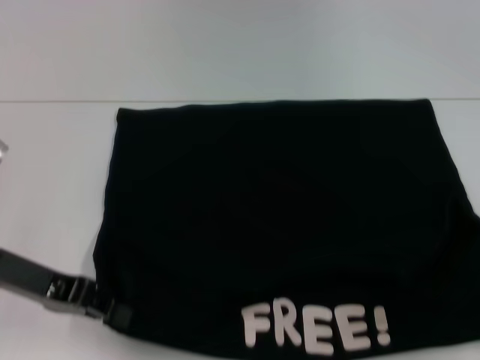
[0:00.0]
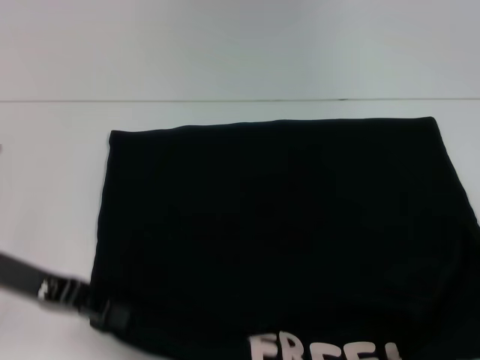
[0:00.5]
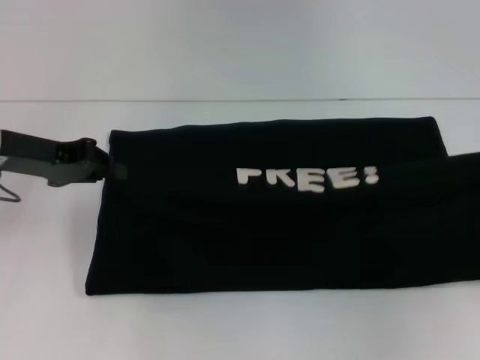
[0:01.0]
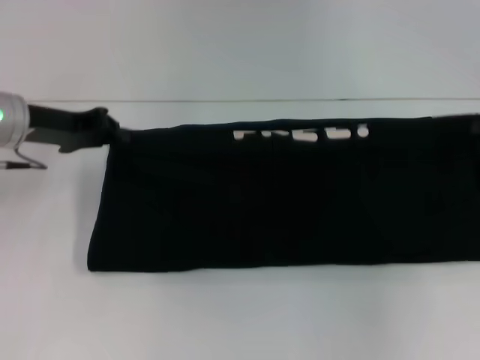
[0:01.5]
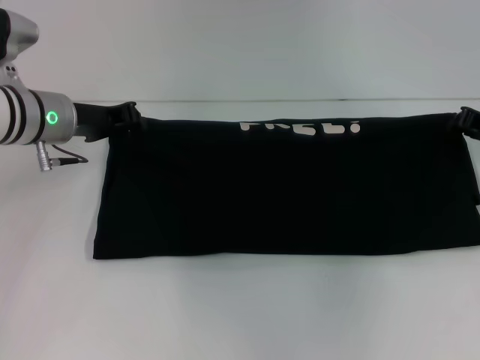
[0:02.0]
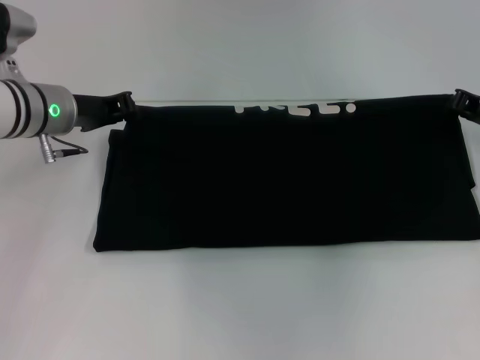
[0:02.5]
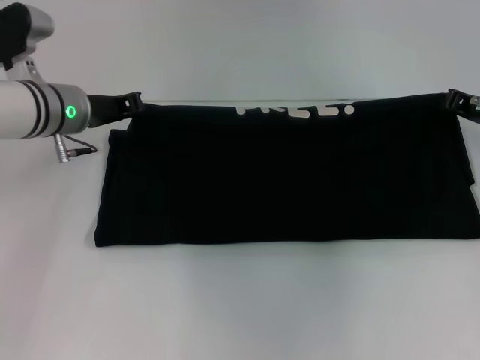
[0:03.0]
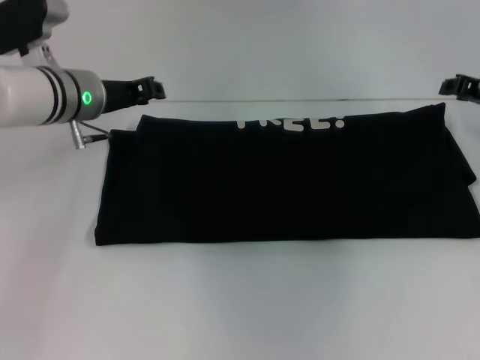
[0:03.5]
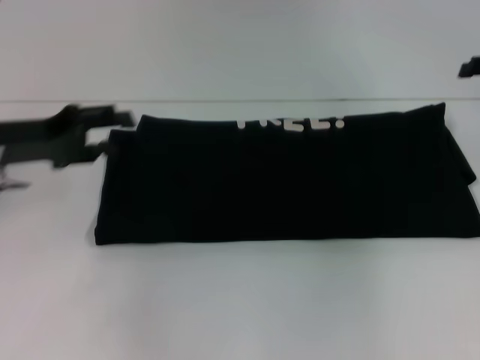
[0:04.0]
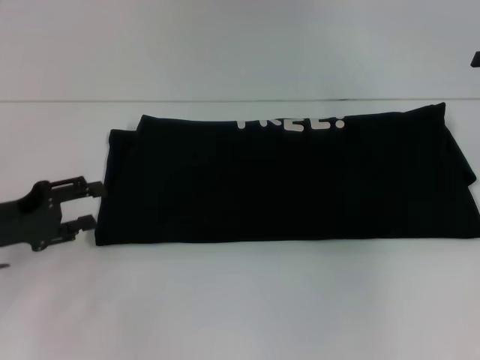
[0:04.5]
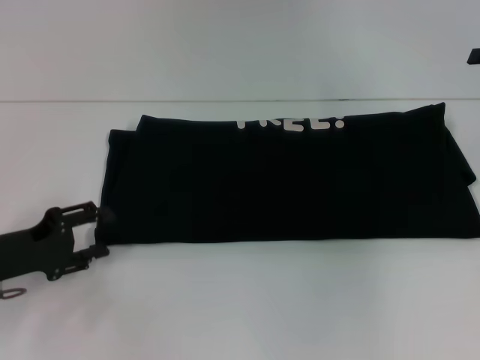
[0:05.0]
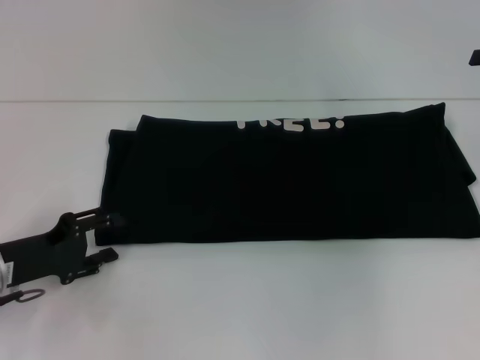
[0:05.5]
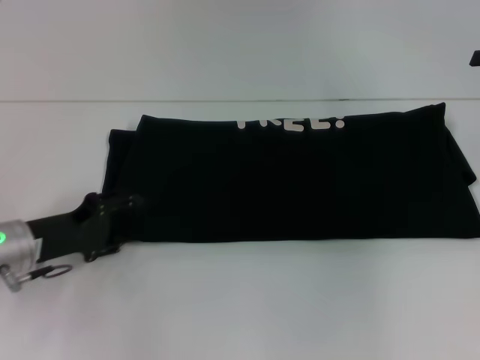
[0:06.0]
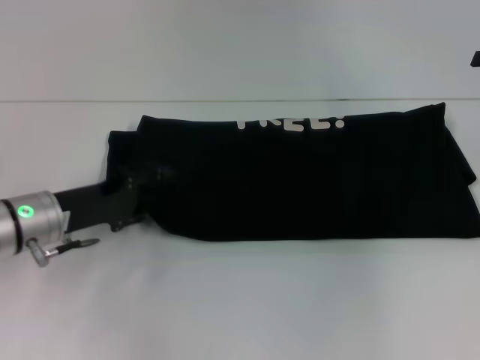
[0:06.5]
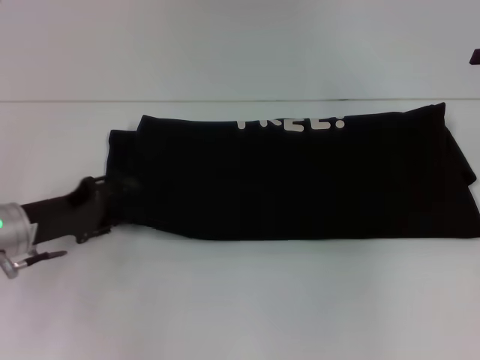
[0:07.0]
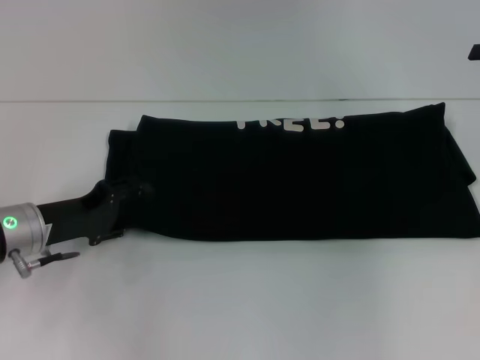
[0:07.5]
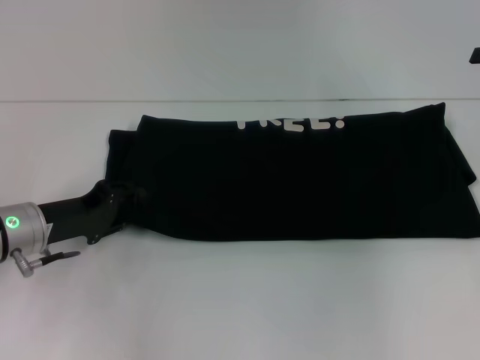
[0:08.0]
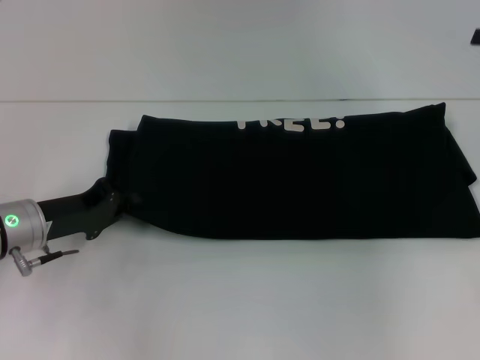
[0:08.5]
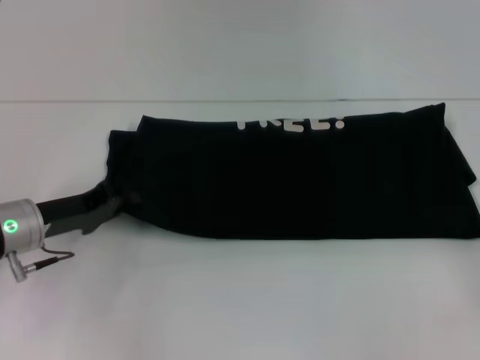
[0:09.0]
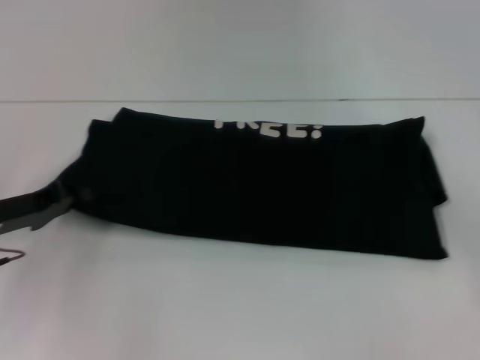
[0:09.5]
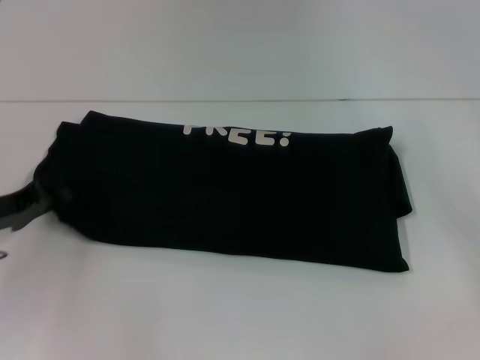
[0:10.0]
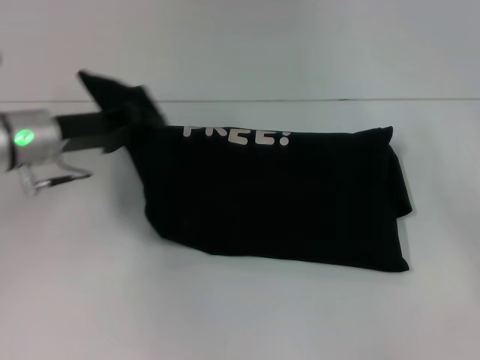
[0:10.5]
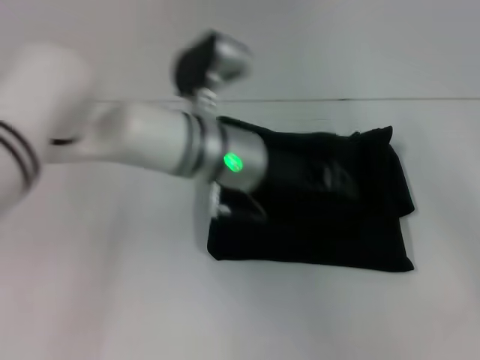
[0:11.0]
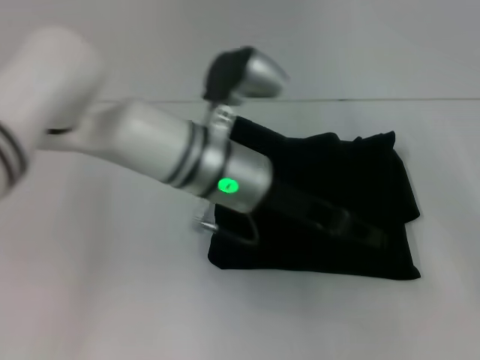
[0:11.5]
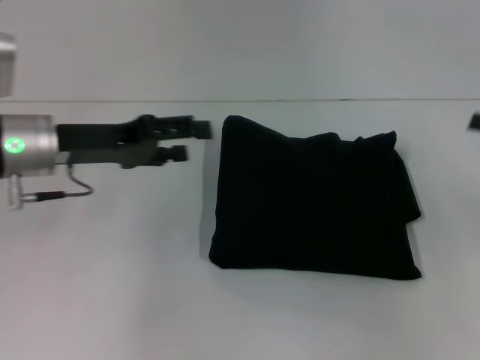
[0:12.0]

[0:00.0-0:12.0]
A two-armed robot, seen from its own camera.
Step, 0:00.0 to 0:04.0: Fold the clothes with your right hand.
Step, 0:00.0 to 0:11.5: Fold the clothes with your left hand.
0:00.0 to 0:02.0: Both grippers move forward, roughly 15 cm.
0:02.0 to 0:04.0: The left gripper is displaced to the left and backward by some 10 cm, and opens. Meanwhile the right gripper is displaced upward by some 10 cm, and opens up.
0:04.0 to 0:06.0: The left gripper travels downward by about 10 cm.
0:06.0 to 0:08.0: There are only small adjustments of the grippers.
0:08.0 to 0:10.0: The right gripper heads backward and downward, covering roughly 15 cm; the left gripper travels to the left by approximately 5 cm, and closes its fingers.
0:10.0 to 0:12.0: The right gripper shifts some 5 cm forward, while the left gripper travels to the right and upward by some 15 cm, and opens its fingers.

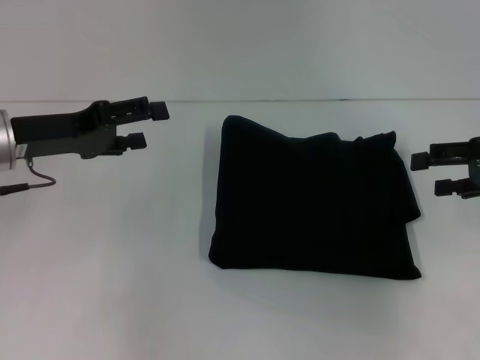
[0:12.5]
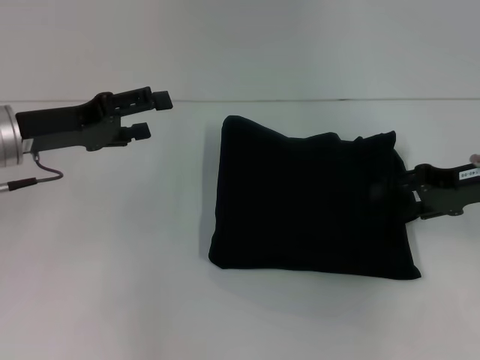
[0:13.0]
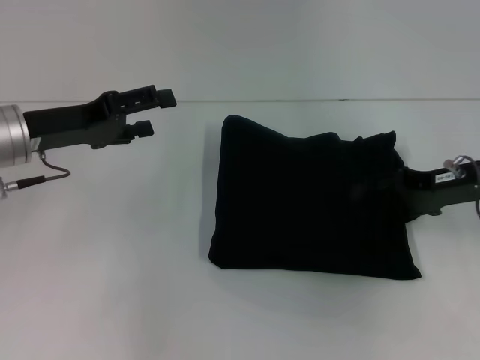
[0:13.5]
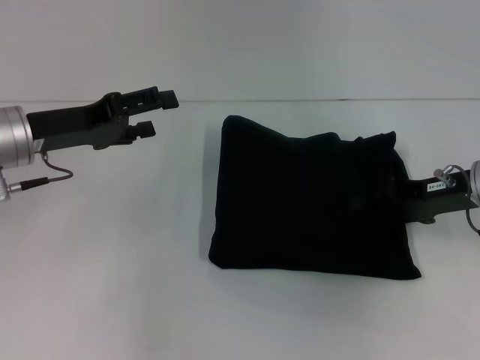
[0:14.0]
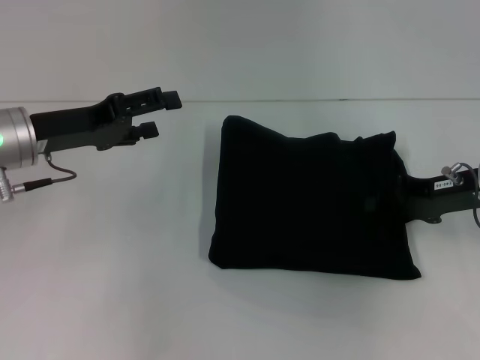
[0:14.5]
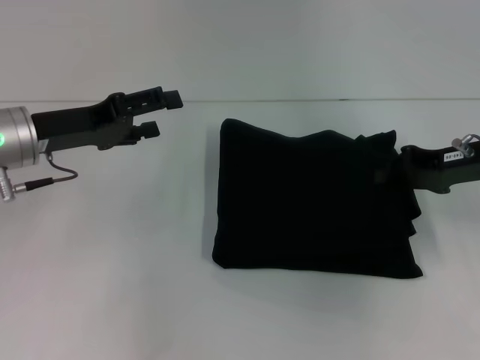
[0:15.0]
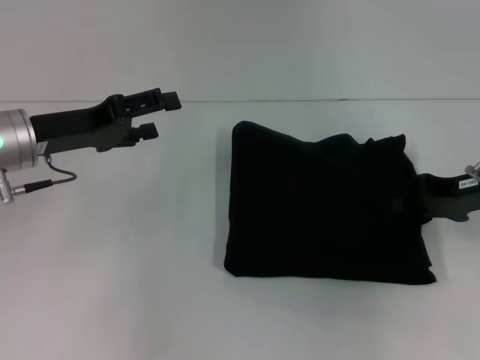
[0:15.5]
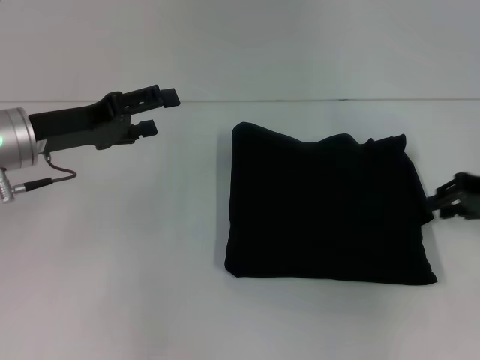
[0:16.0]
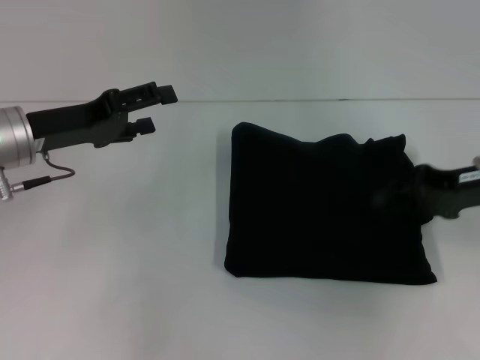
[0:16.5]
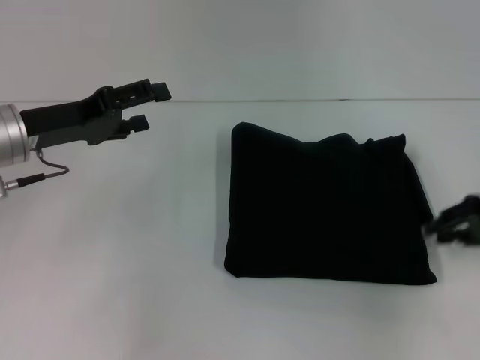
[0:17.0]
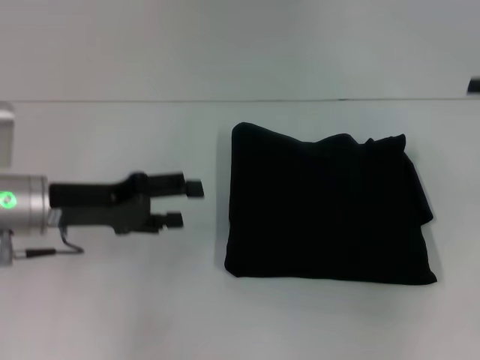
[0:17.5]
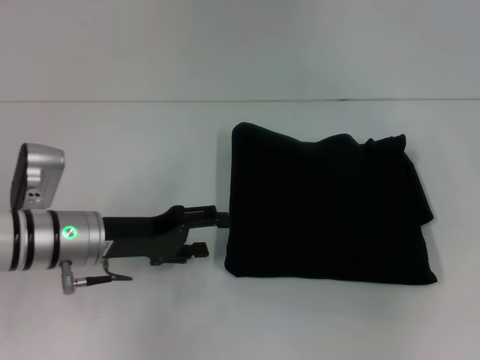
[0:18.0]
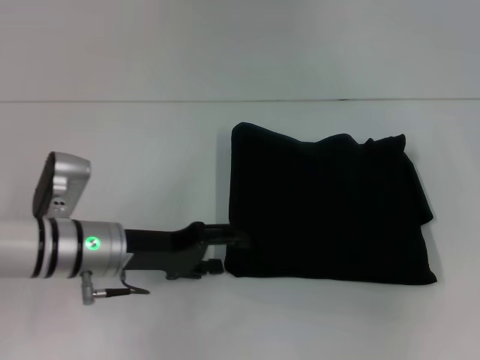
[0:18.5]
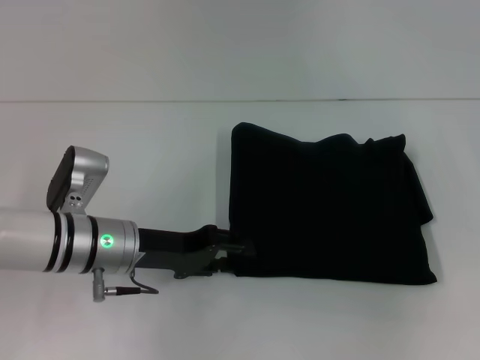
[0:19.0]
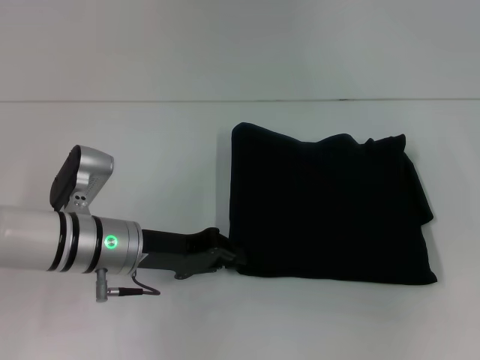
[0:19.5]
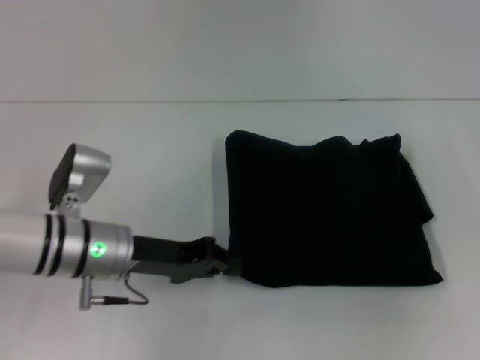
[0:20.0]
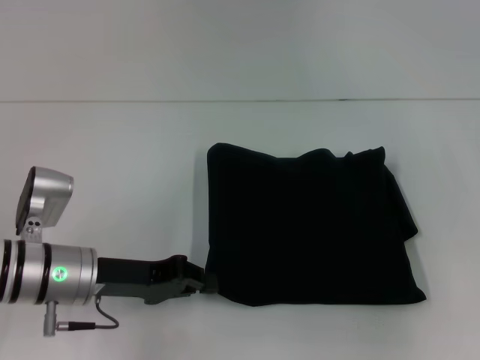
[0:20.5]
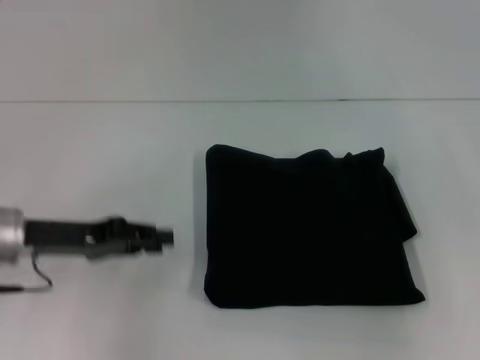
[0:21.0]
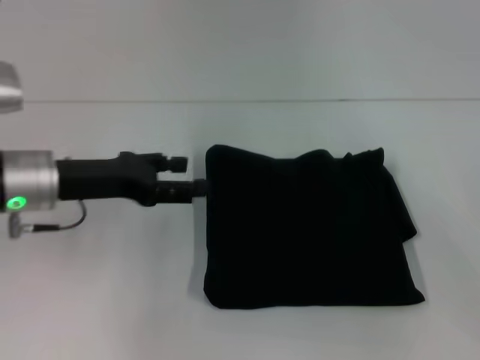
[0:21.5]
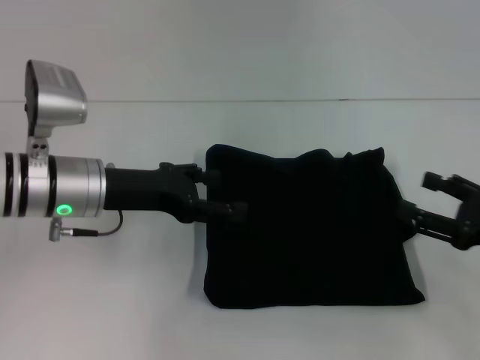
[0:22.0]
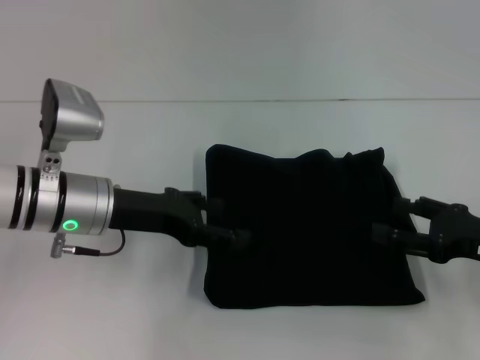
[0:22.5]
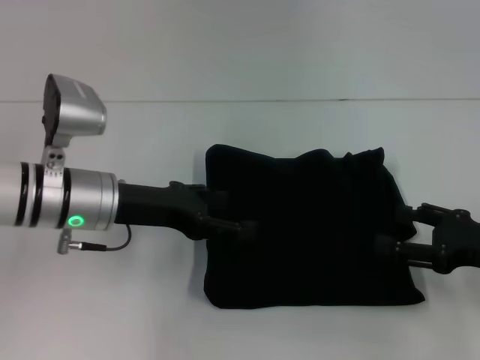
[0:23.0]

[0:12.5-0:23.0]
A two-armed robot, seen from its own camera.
0:12.5 to 0:14.5: The right gripper heads to the left and downward, covering roughly 10 cm, and closes up.
0:16.5 to 0:19.0: The right gripper shifts about 15 cm to the right and upward, and opens up, while the left gripper goes about 10 cm to the right and downward.
0:19.0 to 0:21.0: The left gripper moves to the left, some 10 cm, and closes.
0:21.0 to 0:23.0: The right gripper travels downward, to the left and backward by some 20 cm, while the left gripper shifts about 10 cm to the right, and opens its fingers.

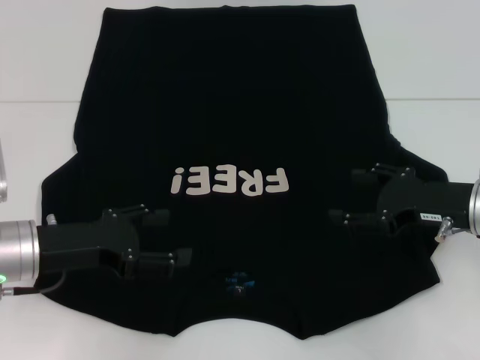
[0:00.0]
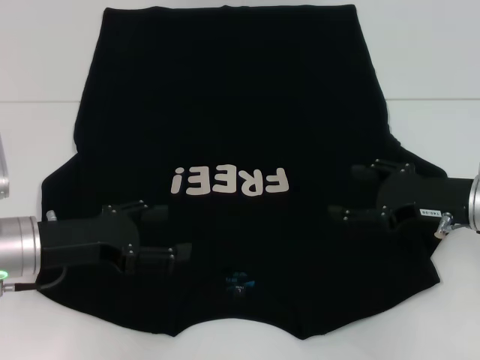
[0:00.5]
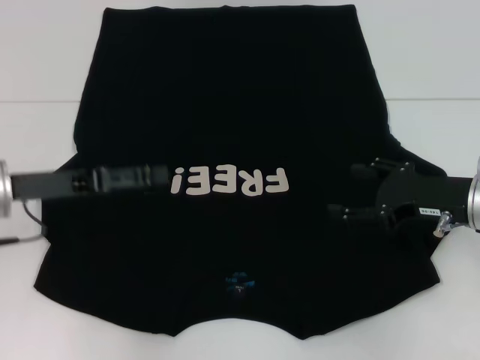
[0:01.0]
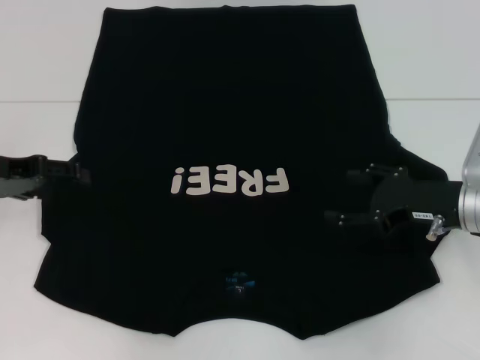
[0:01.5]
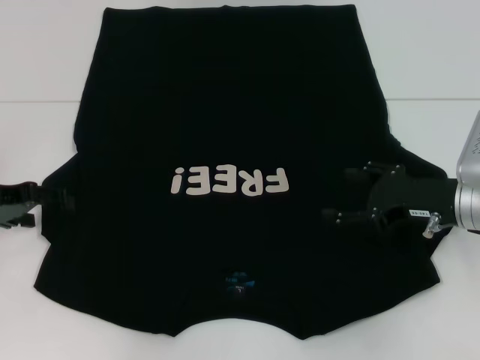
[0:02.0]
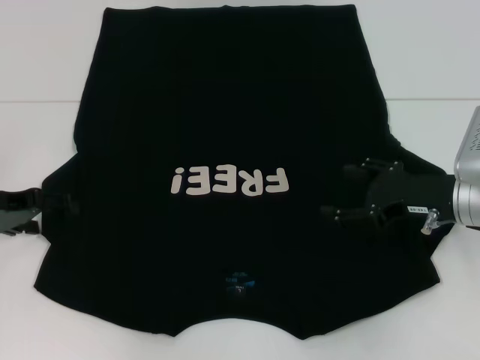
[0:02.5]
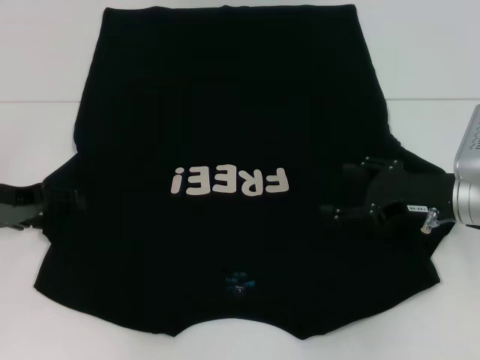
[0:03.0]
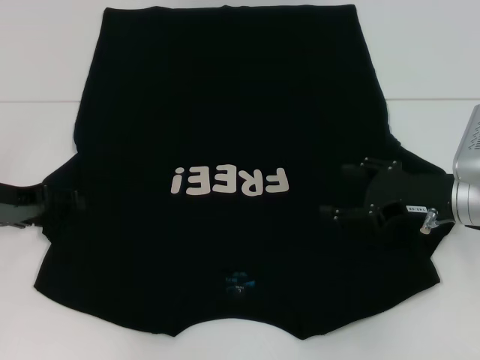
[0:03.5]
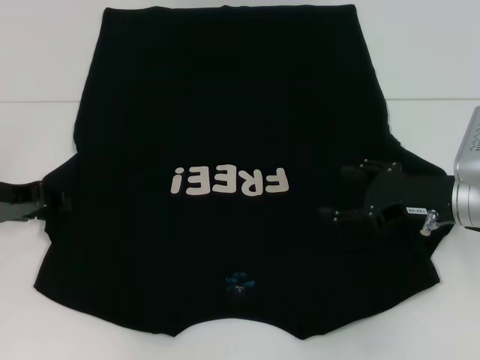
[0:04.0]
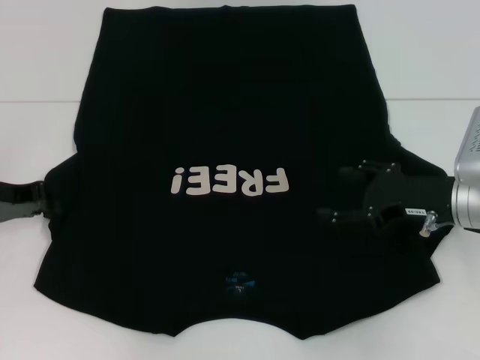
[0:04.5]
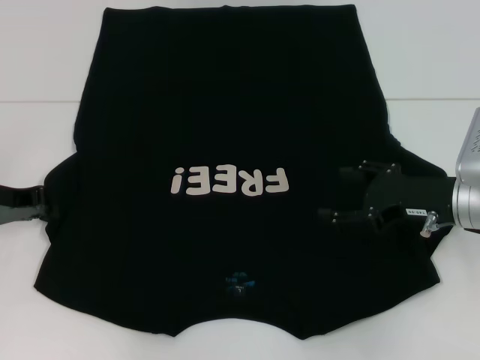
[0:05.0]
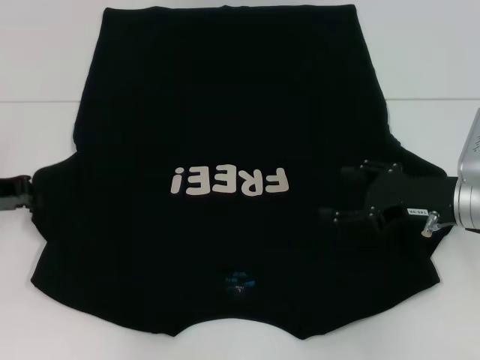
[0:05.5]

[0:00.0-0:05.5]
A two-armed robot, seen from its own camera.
0:00.0 to 0:02.0: The left gripper heads to the left and forward, covering roughly 10 cm.
0:02.0 to 0:03.5: There are only small adjustments of the grippers.
0:03.5 to 0:05.5: The left gripper closes.
